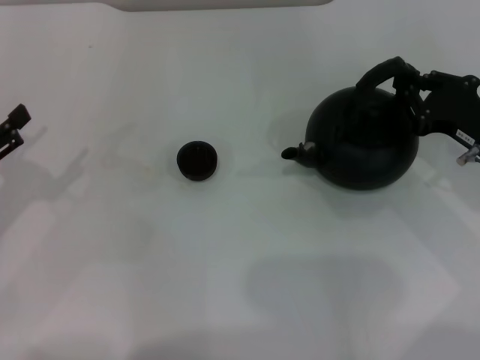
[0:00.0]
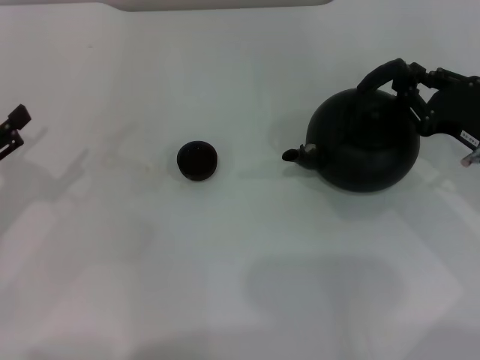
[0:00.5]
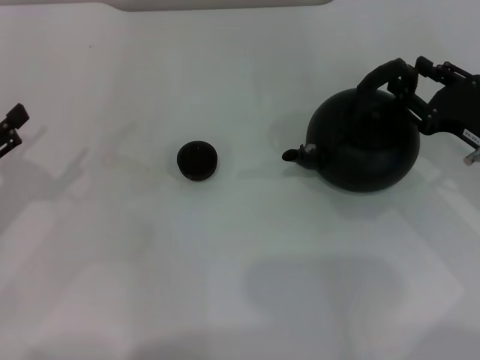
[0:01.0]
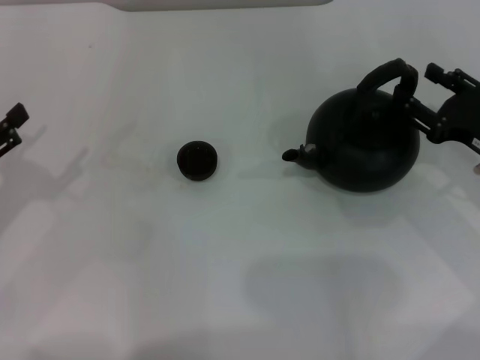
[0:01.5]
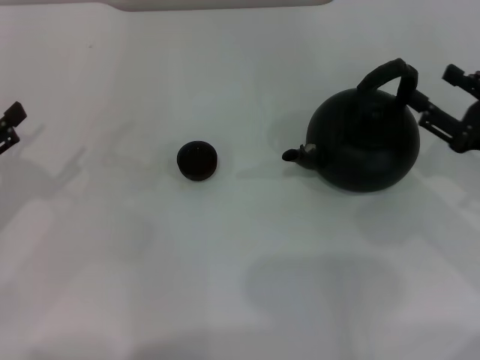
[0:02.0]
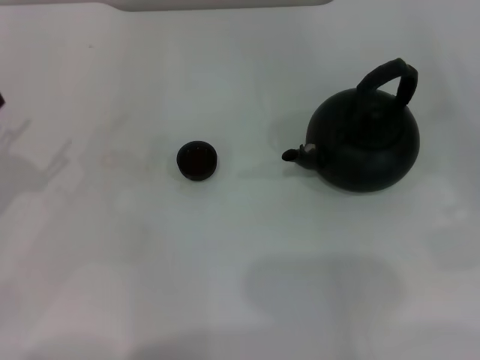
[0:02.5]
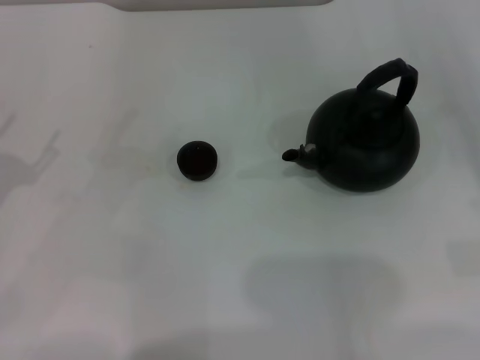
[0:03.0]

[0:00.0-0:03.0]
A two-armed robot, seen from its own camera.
Task of the whole recording: Grasp the handle of the teapot with one hand and pour tea into the teacup.
0:00.0 to 0:01.5: The right gripper opens up.
0:01.5 to 0:03.0: The right gripper moves to the right and backward, approximately 15 cm.
